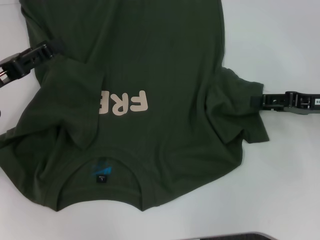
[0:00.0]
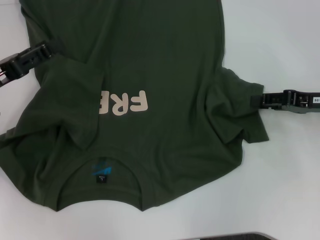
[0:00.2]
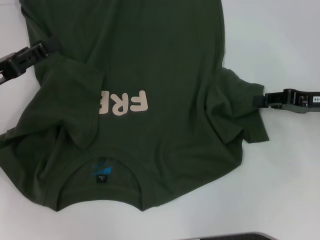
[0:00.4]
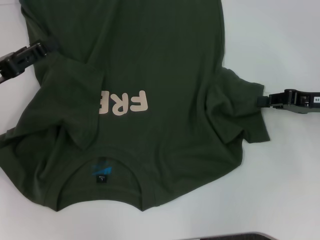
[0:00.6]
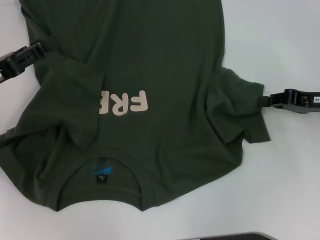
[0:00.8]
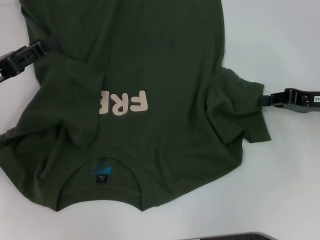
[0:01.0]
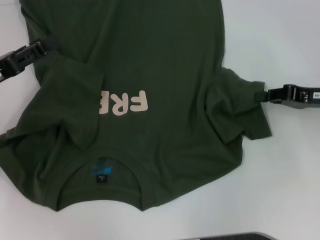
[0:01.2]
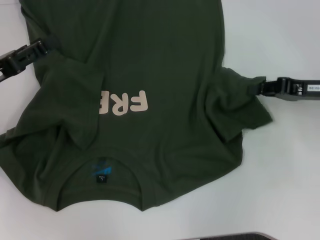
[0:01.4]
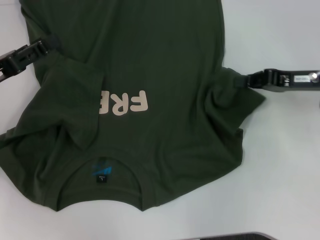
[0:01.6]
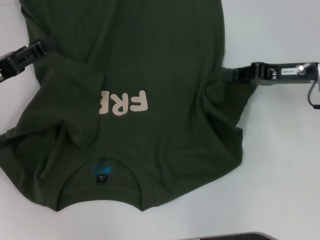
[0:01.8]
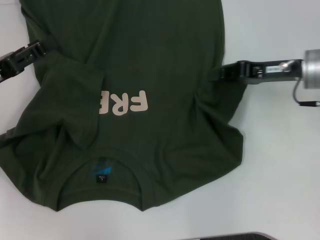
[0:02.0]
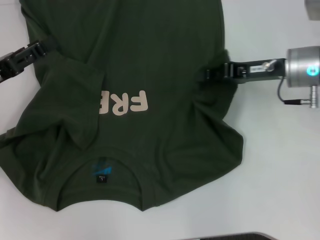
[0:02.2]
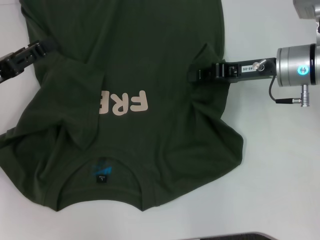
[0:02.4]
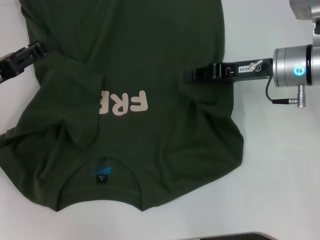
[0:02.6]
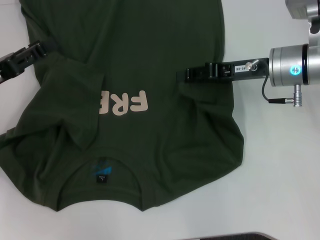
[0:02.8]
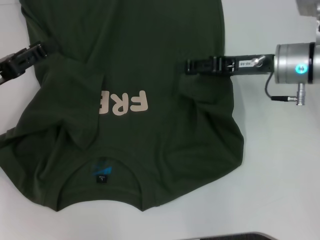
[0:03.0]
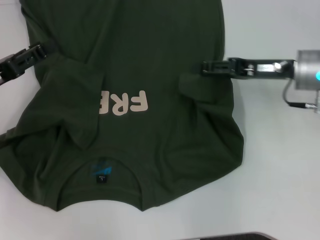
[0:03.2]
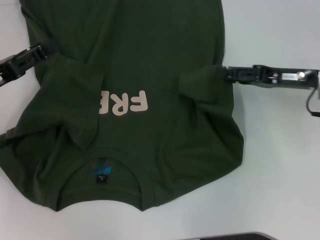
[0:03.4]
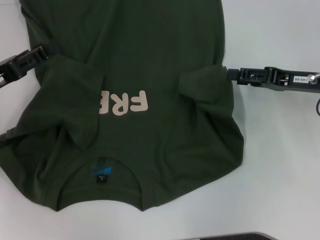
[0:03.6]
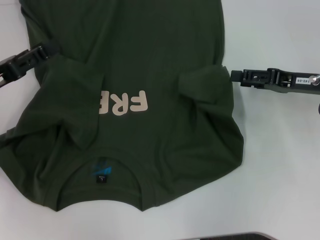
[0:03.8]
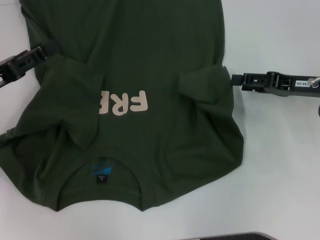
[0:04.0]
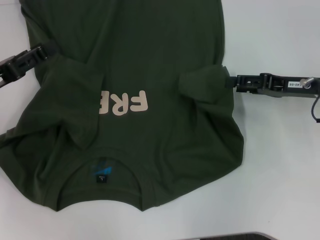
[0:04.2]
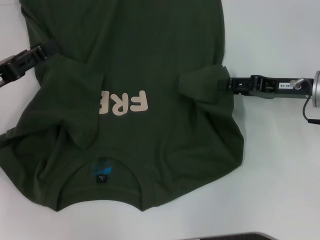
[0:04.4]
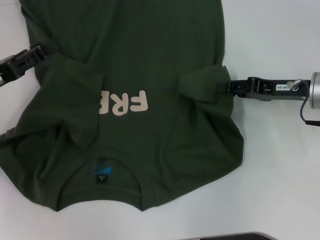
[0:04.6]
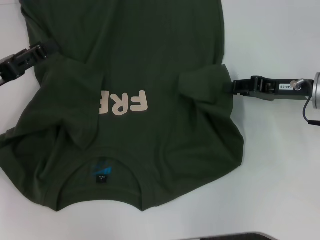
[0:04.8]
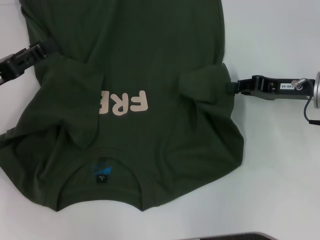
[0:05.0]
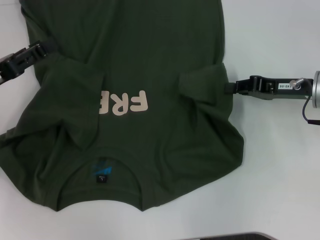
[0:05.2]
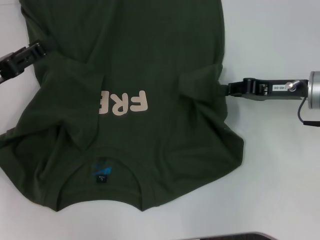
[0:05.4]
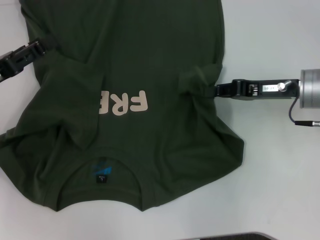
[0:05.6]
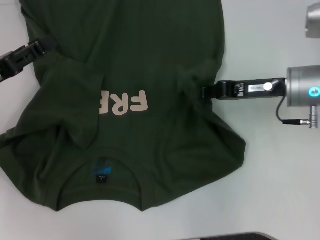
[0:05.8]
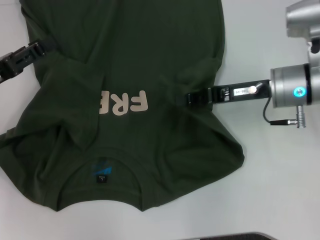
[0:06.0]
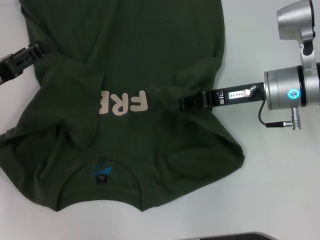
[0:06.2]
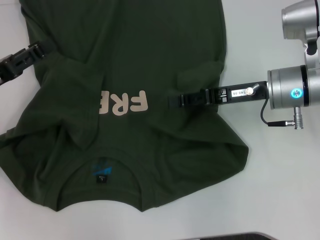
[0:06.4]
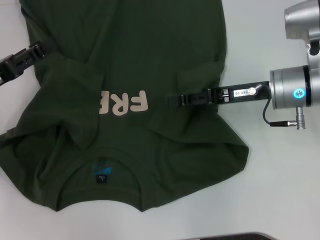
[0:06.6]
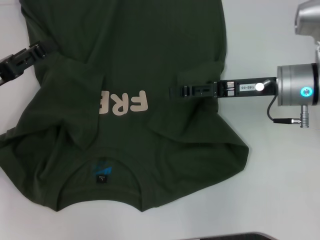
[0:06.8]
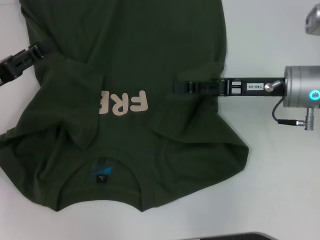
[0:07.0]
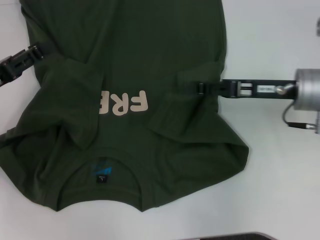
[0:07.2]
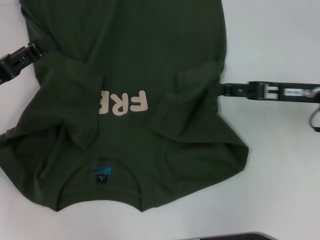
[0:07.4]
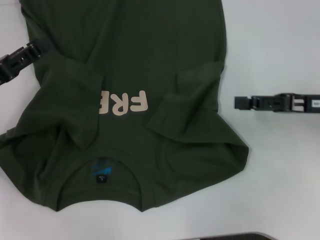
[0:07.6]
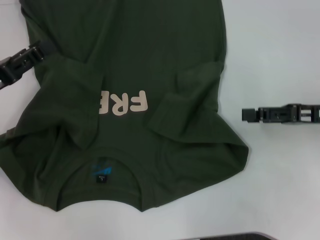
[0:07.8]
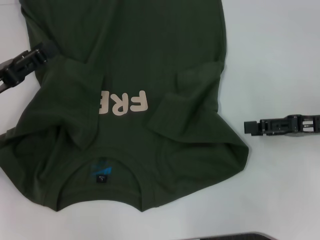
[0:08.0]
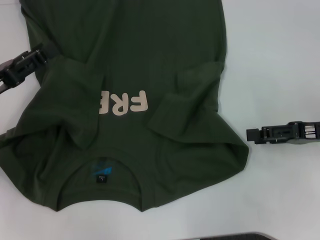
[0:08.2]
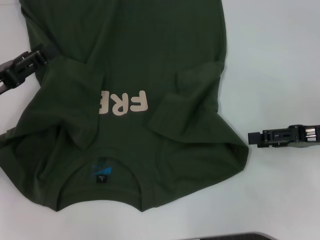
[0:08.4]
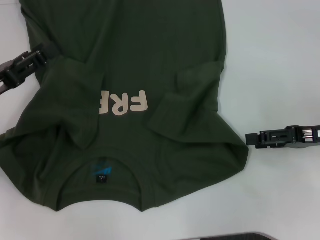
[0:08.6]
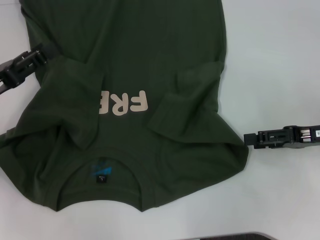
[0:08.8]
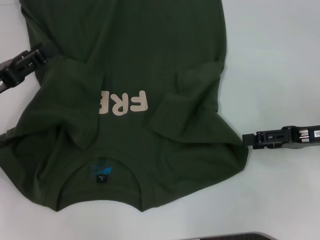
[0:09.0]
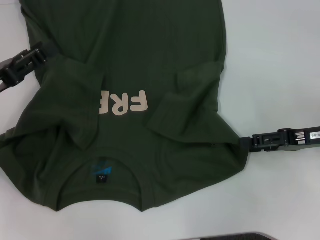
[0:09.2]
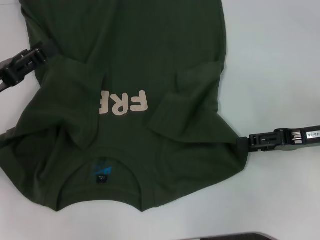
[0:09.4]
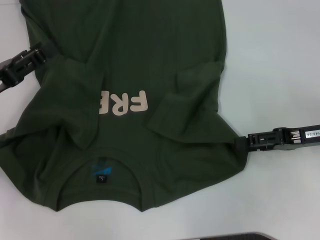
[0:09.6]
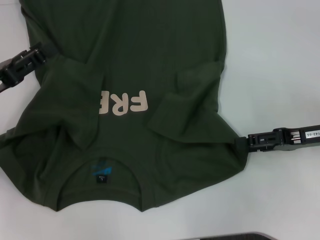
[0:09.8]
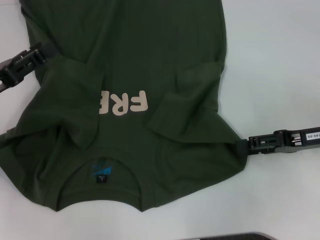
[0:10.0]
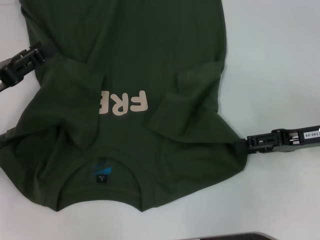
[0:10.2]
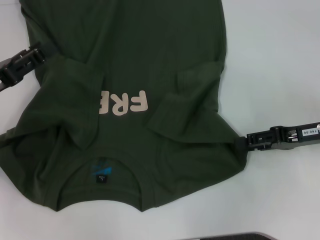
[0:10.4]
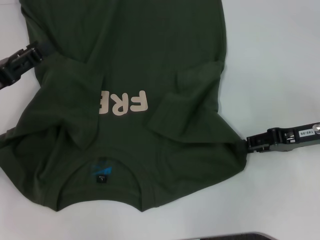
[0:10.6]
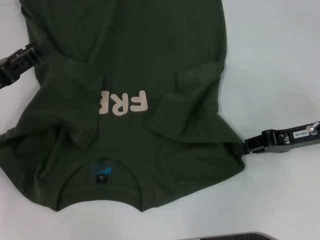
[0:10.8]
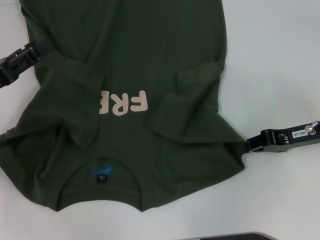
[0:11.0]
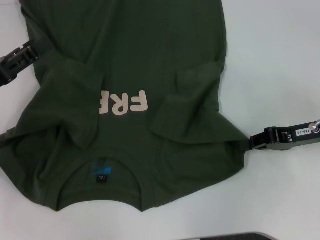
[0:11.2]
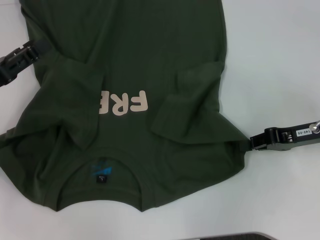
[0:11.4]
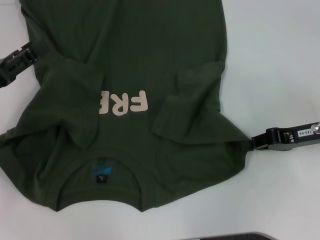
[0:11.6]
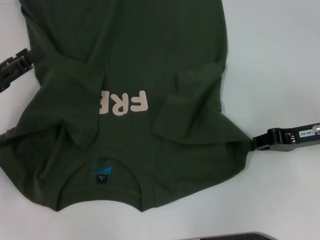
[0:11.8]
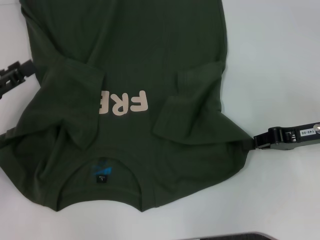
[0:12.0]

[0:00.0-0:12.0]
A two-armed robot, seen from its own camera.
Step, 0:00.0 to 0:06.6: Fold the bottom right sleeve with your right hand.
Step, 0:06.8 to 0:11.4: Grab the bottom right corner with your right hand.
0:00.0 to 0:01.6: The right gripper closes.
0:01.6 to 0:03.0: The right gripper travels to the left by roughly 10 cm, and opens its fingers.
0:03.0 to 0:04.4: The right gripper heads to the right, covering roughly 5 cm, and opens.
0:04.4 to 0:06.0: The right gripper moves to the left, approximately 5 cm, and closes up.
0:06.0 to 0:07.6: The right gripper goes about 10 cm to the right, and opens up.
0:07.6 to 0:09.0: The grippers stay close to where they were, moving slightly.
0:09.0 to 0:10.4: The grippers stay close to where they were, moving slightly.
0:10.4 to 0:12.0: The right gripper closes its fingers.

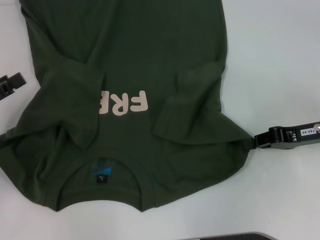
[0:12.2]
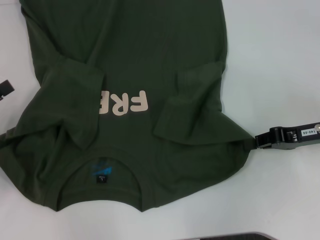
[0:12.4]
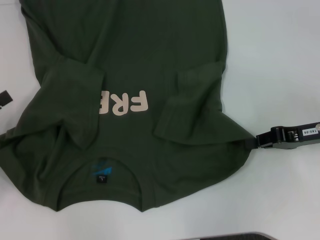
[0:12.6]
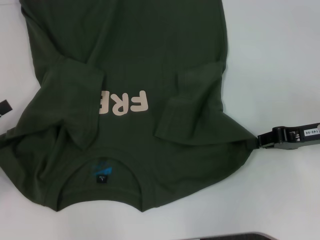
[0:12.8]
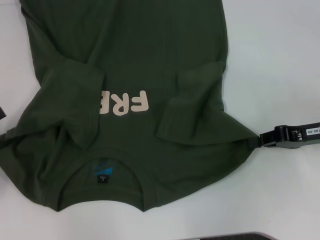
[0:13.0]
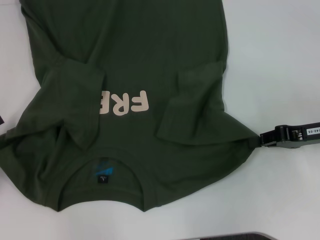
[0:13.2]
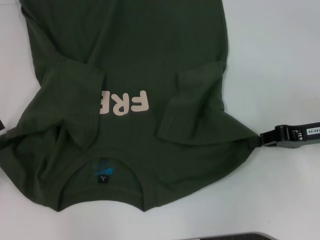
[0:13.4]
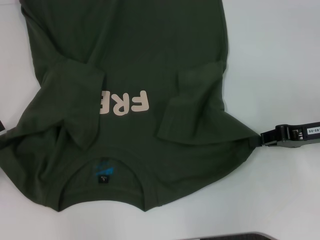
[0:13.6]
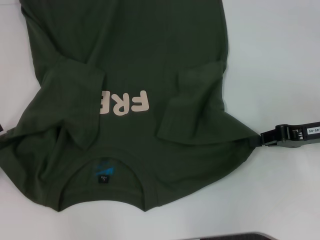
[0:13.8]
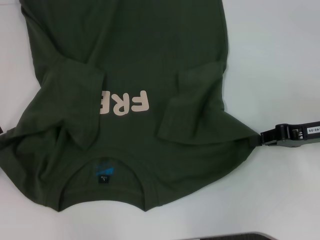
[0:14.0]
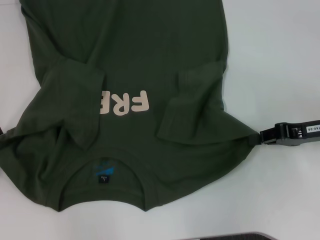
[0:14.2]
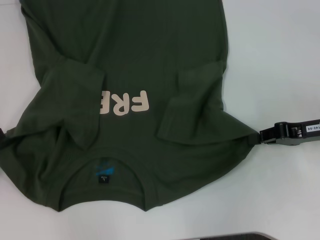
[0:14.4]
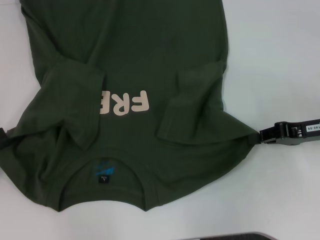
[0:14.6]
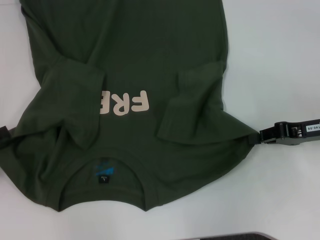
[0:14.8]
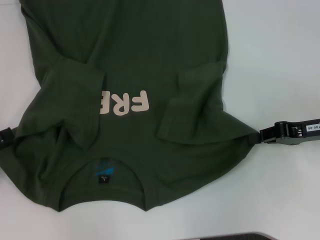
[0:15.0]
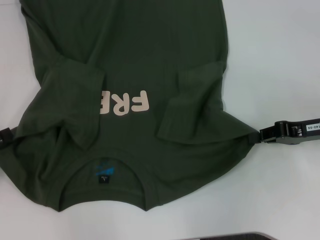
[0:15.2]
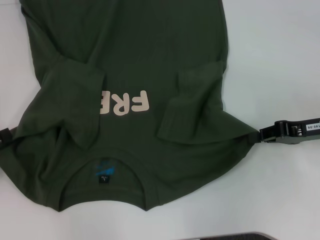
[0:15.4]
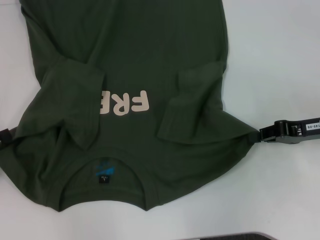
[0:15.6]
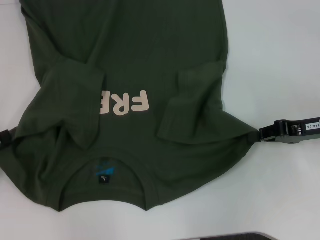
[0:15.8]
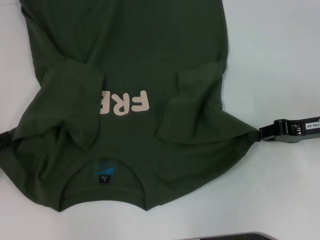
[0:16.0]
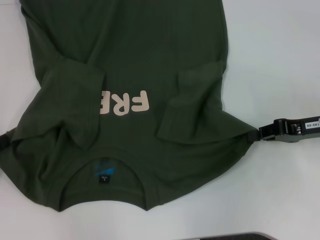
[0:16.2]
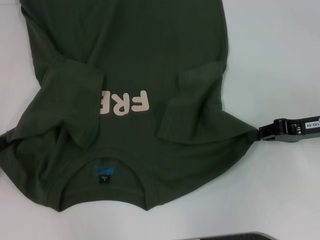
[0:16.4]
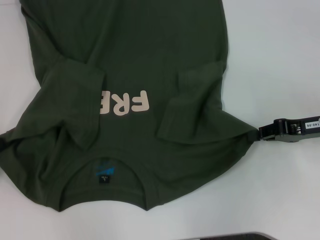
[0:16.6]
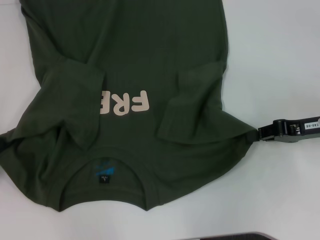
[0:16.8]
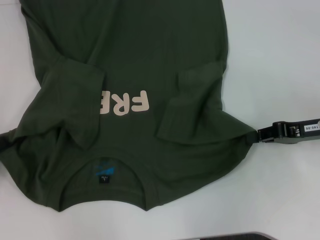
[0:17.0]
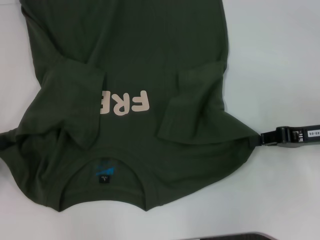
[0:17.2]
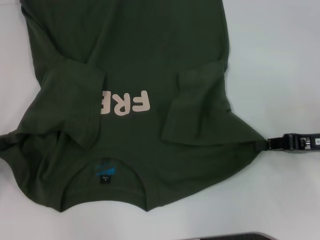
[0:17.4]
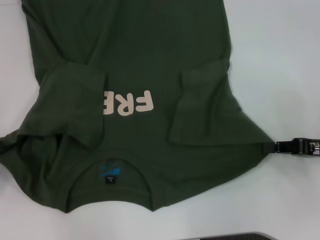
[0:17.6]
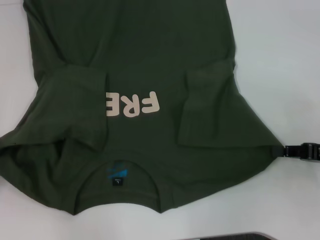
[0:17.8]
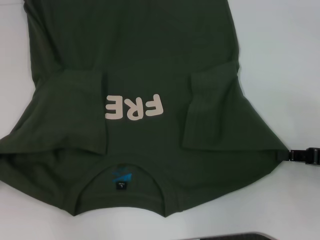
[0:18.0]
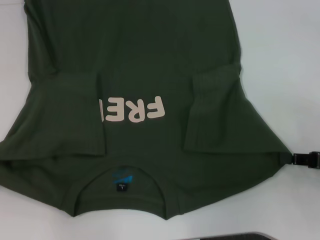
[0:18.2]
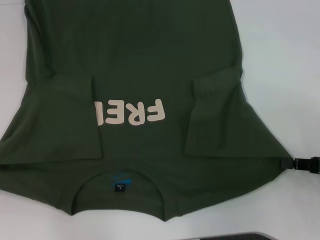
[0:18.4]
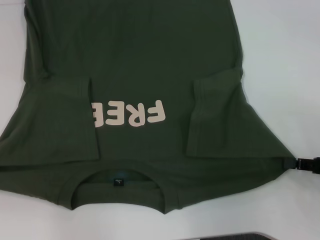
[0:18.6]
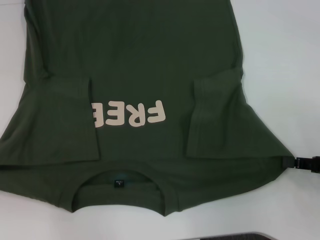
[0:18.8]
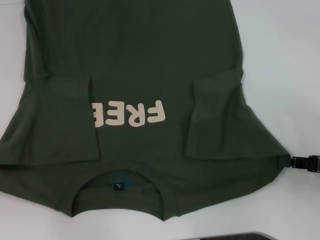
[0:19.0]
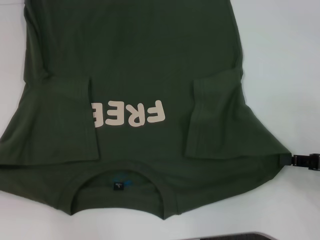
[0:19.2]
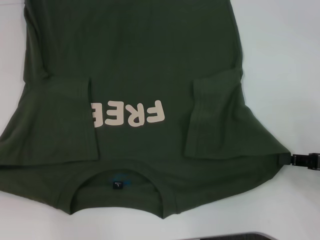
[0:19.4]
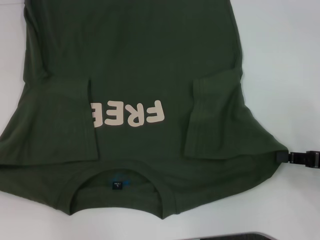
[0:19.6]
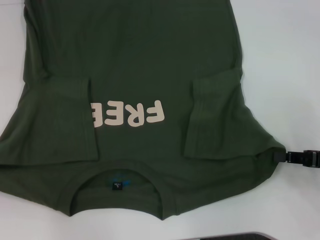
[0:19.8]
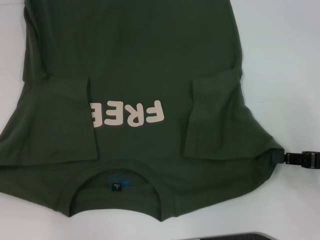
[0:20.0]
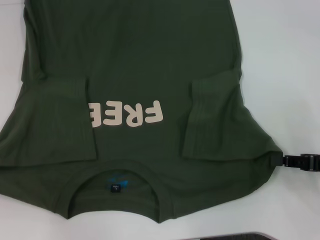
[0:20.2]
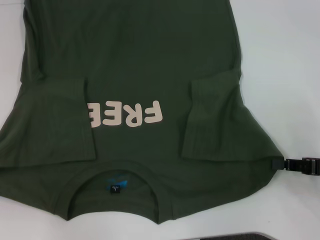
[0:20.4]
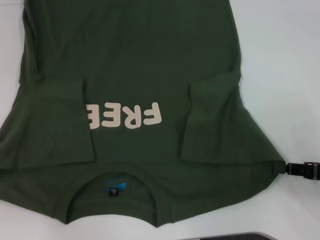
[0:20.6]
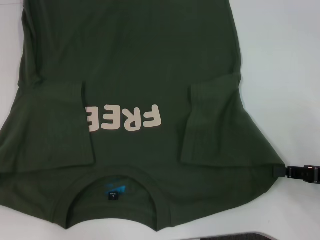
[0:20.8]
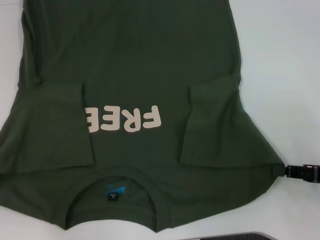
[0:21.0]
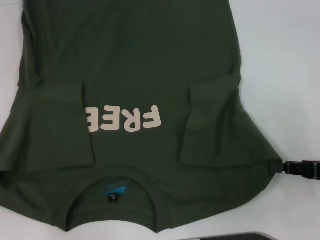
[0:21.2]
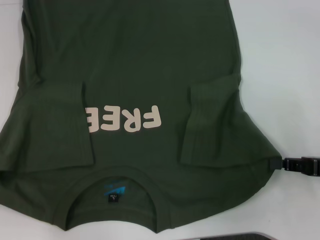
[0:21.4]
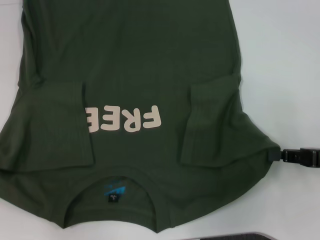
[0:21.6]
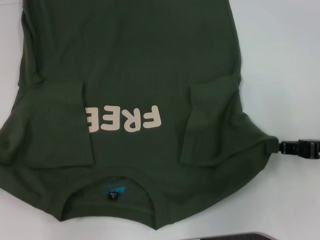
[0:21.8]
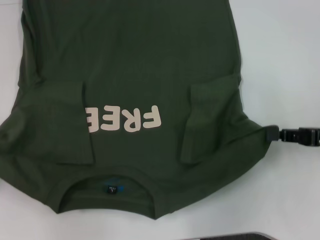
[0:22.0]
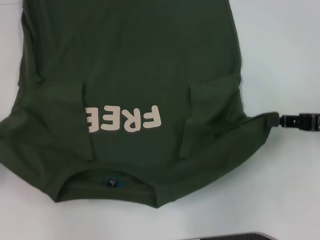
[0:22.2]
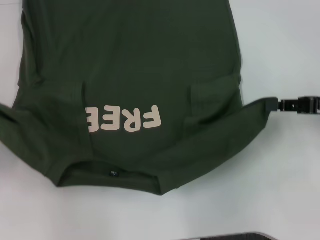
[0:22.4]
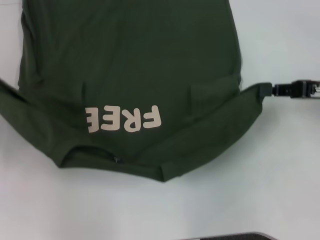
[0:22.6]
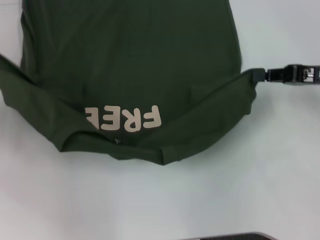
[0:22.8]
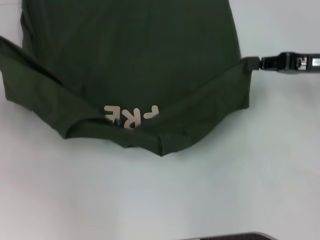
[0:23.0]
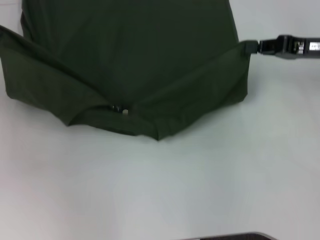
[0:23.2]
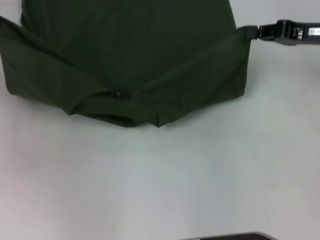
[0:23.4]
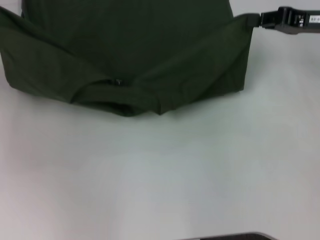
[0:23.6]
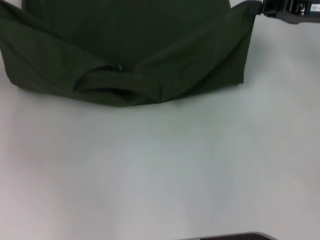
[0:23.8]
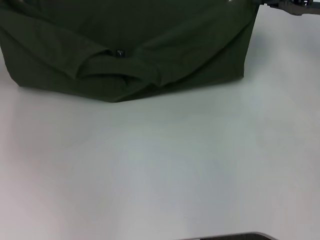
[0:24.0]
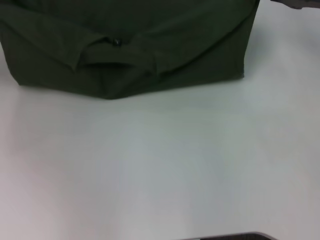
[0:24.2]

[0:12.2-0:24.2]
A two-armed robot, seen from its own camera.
Step, 0:12.2 to 0:17.2: Grab the bottom left corner with your left hand.
0:12.2 to 0:13.8: The left gripper changes place by roughly 5 cm.
0:13.8 to 0:15.2: Both grippers stay put.
0:16.6 to 0:18.2: The right gripper goes some 10 cm backward.
0:18.2 to 0:19.8: Both grippers stay about where they are.
0:19.8 to 0:21.2: The grippers make only small movements.
0:21.2 to 0:22.6: The two grippers go roughly 10 cm forward and upward.
0:22.6 to 0:24.2: The right gripper shifts about 10 cm forward and upward; the left gripper is displaced forward by approximately 10 cm.
